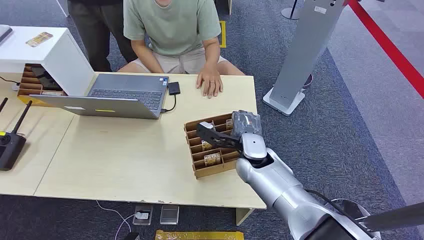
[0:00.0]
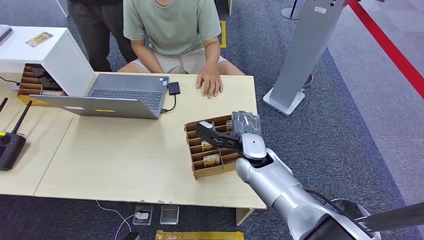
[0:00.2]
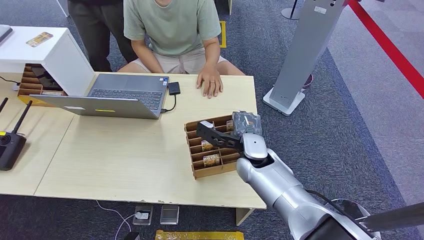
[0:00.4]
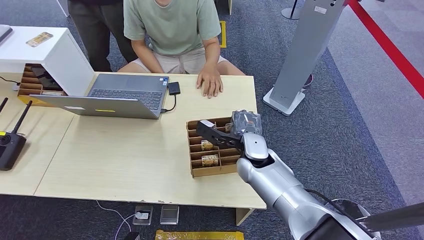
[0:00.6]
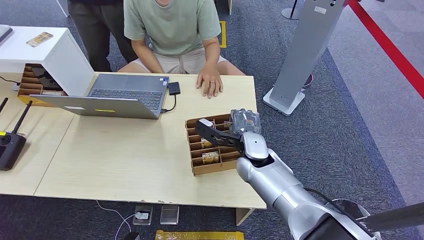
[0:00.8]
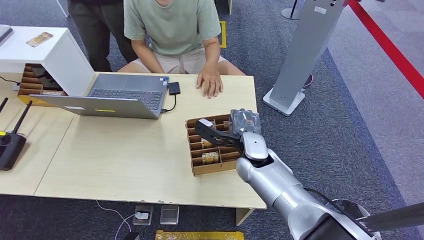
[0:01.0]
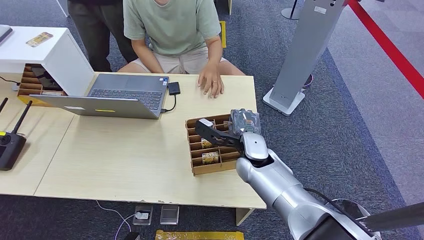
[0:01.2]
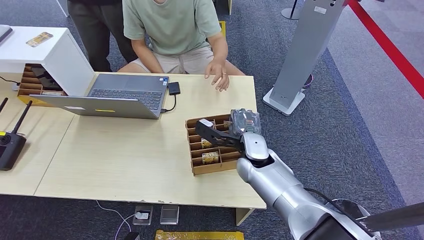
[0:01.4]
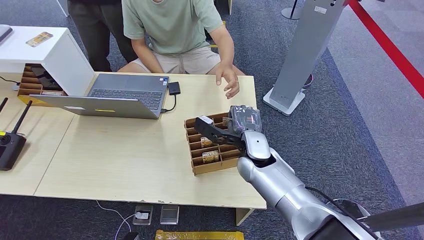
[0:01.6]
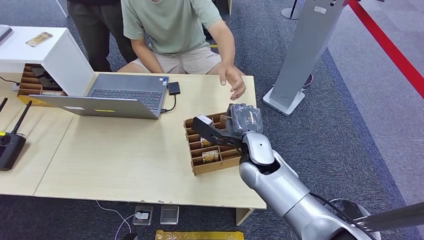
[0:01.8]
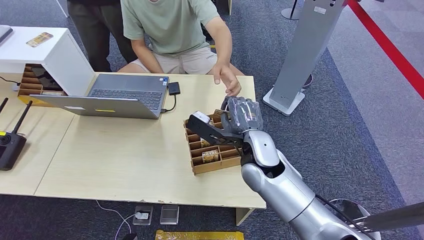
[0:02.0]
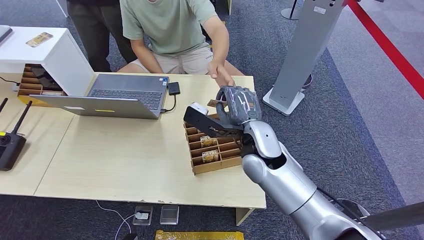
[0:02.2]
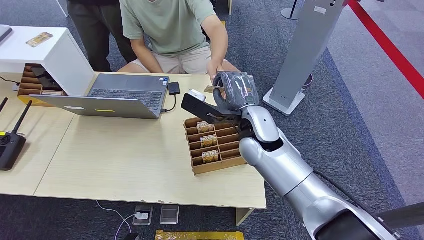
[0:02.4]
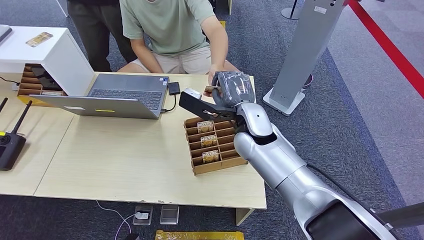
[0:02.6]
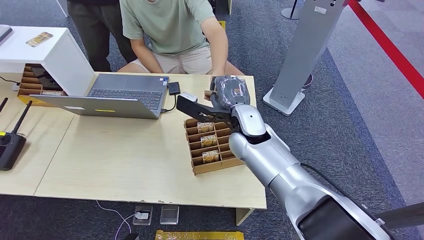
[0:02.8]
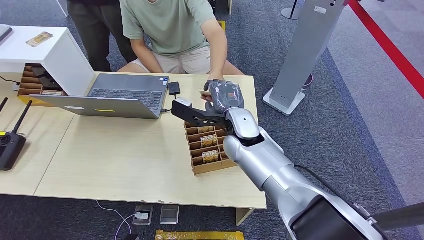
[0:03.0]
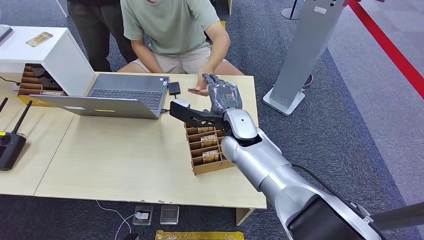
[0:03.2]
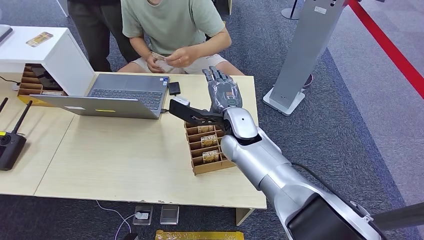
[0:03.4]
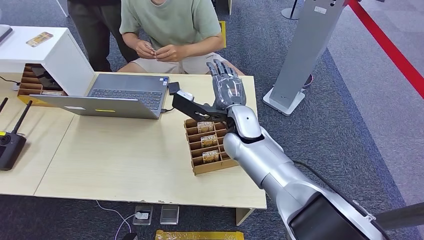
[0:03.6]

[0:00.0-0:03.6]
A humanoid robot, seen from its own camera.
Step, 0:00.0 to 0:02.2: Pick up the room card from the card holder.
Step, 0:02.8 to 0:03.6: Hand the room card to the target.
0:01.8 to 0:03.6: The right hand shifts by approximately 10 cm.

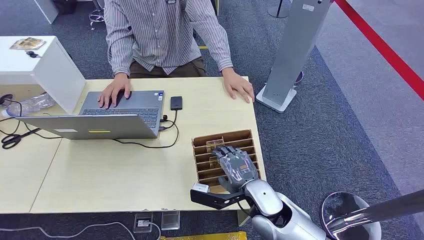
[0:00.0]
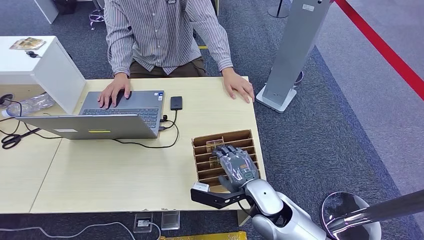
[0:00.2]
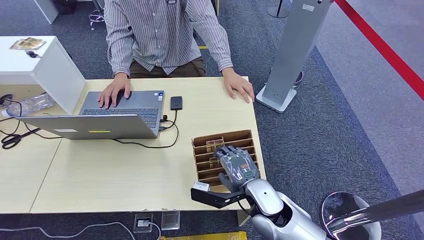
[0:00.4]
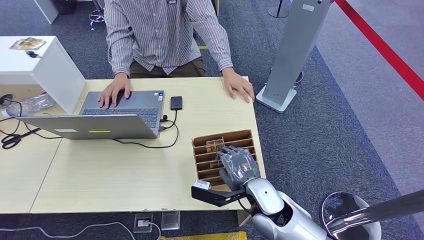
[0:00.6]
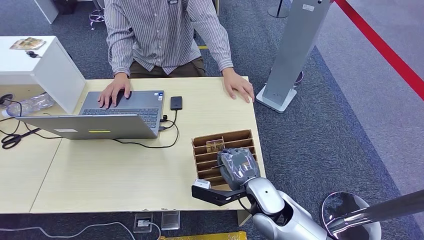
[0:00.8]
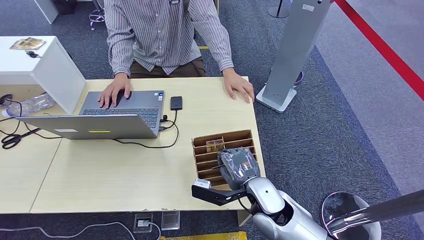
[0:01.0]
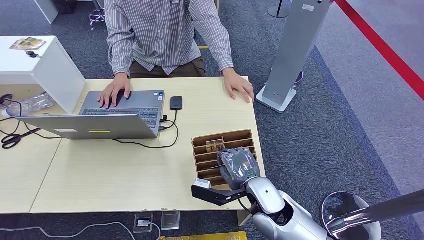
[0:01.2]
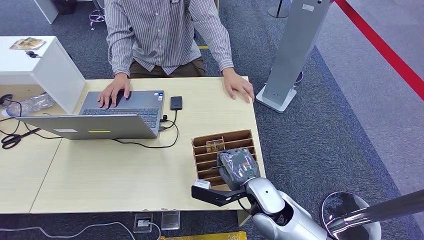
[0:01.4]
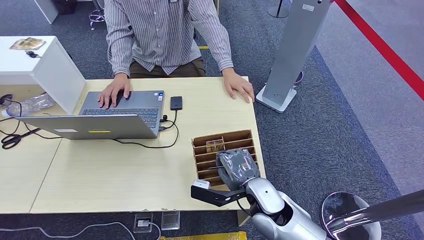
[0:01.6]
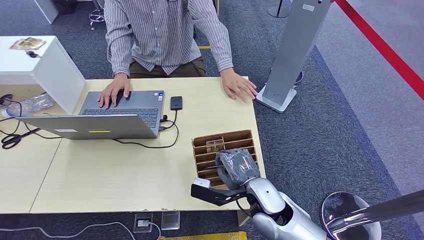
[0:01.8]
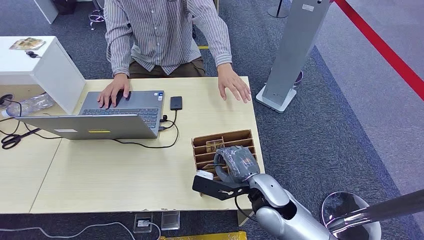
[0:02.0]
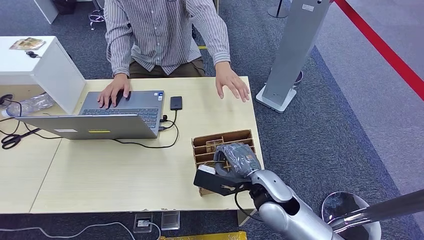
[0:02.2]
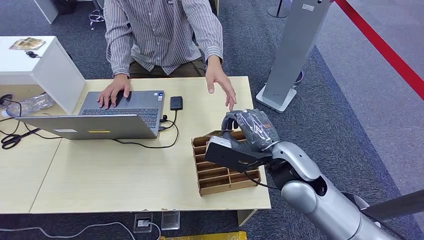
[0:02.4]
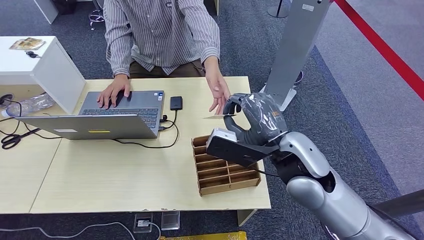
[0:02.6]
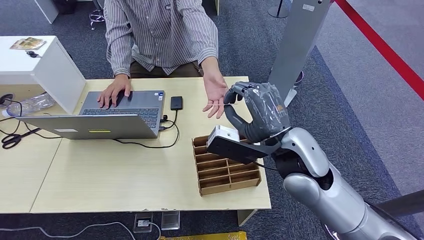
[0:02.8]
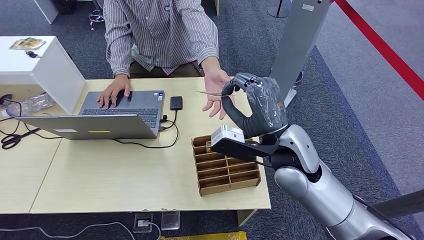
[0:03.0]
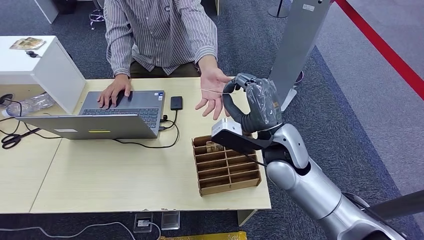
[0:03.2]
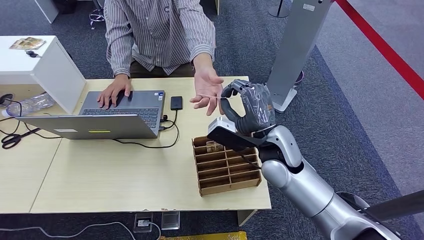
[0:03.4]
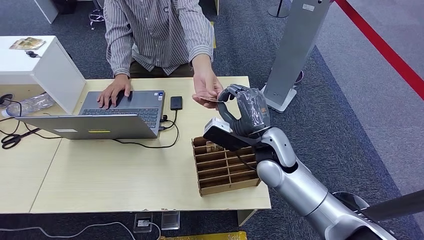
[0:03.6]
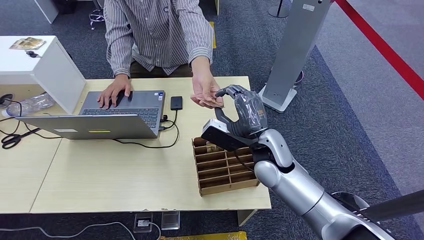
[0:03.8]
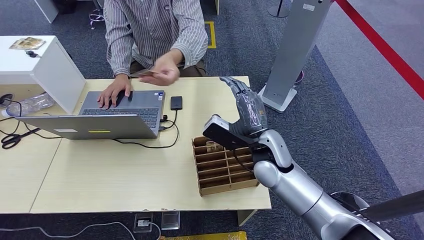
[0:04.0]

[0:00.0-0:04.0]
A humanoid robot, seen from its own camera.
Step, 0:00.0 to 0:02.2: Pick up the room card from the card holder.
Step, 0:02.8 to 0:04.0: Hand the room card to the target.
0:01.4 to 0:02.6: The right hand goes about 15 cm upward.
0:02.6 to 0:04.0: The right hand heads downward and forward, covering approximately 10 cm.

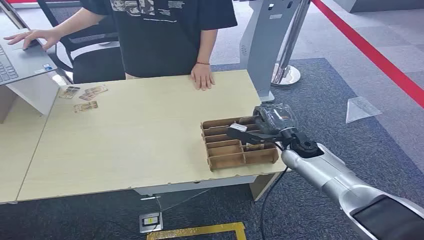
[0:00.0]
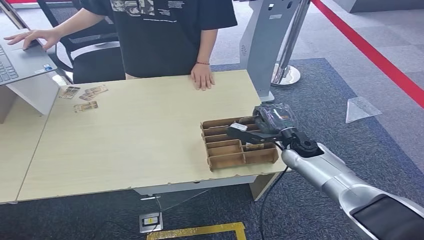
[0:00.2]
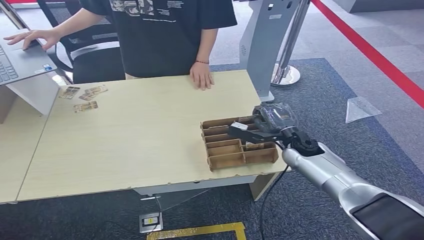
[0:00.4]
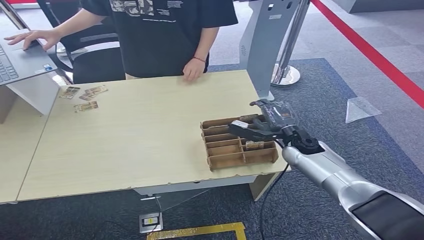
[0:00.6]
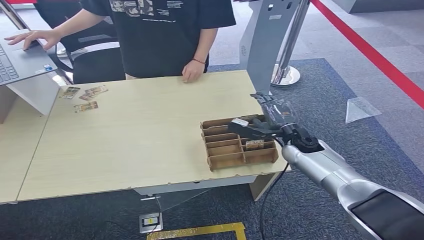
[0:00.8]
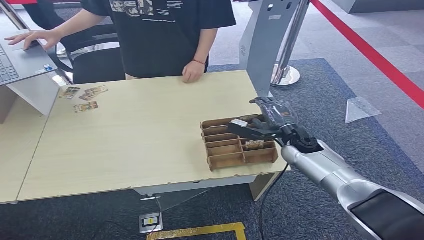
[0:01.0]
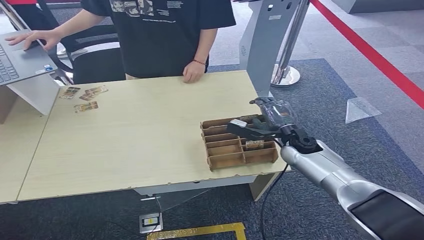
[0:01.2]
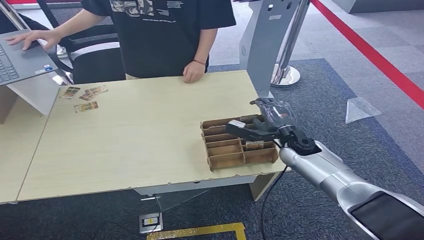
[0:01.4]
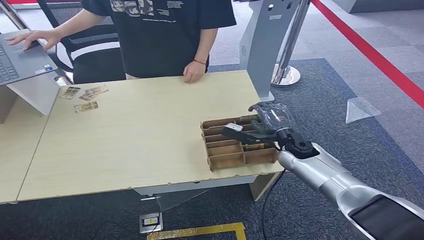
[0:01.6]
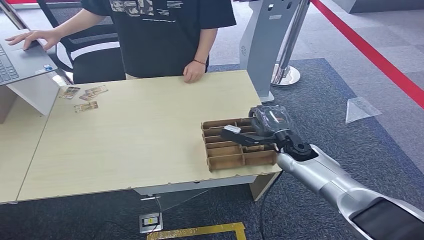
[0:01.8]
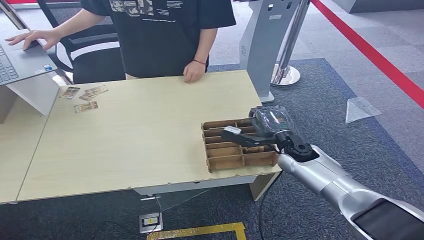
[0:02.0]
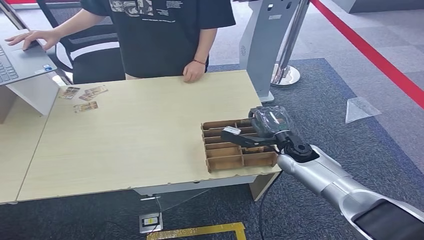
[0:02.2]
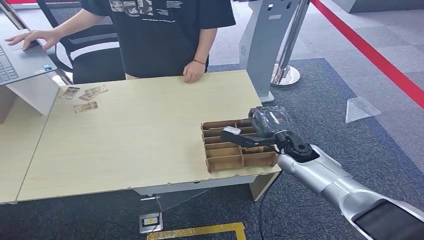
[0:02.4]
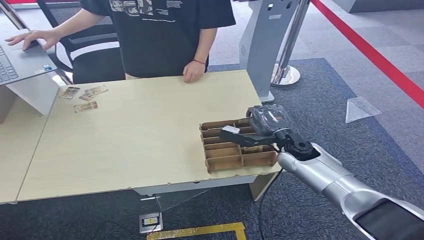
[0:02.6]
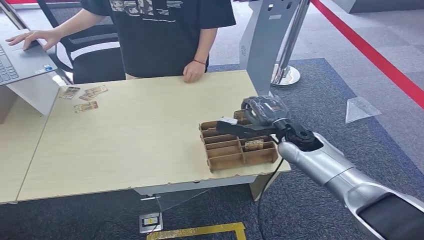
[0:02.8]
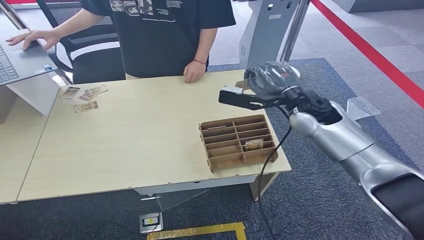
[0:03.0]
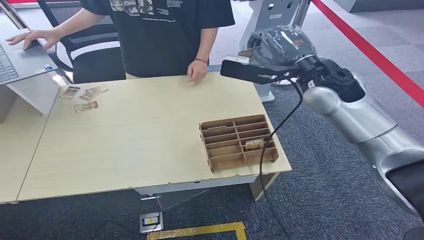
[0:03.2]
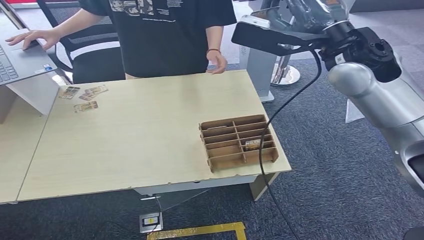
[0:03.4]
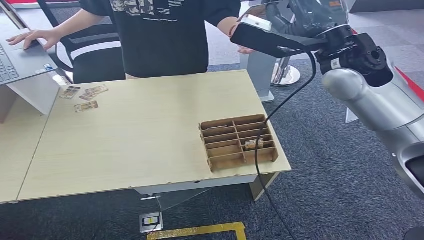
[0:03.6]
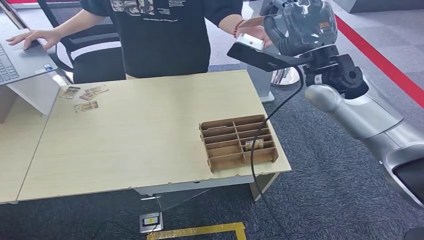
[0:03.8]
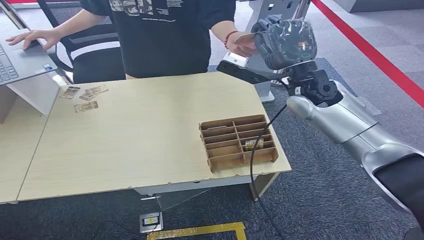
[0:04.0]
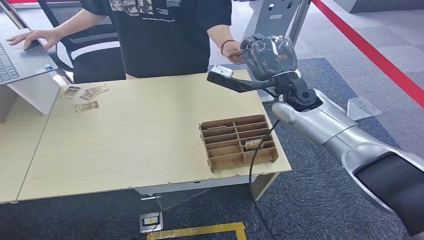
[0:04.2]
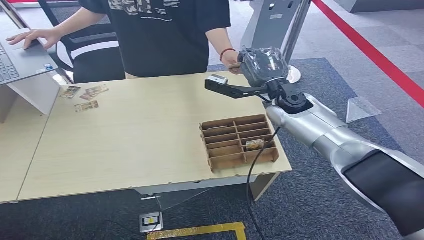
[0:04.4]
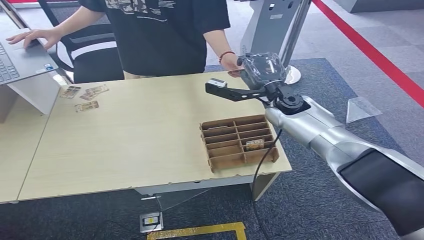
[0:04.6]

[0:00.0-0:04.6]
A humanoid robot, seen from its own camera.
Step, 0:00.0 to 0:03.0: Pick up the room card from the card holder.
Step, 0:03.2 to 0:04.6: Hand the room card to the target.
0:01.6 to 0:03.0: The right hand heads upward, covering some 15 cm.
0:03.0 to 0:04.6: The right hand goes upward and returns, about 20 cm each way.
